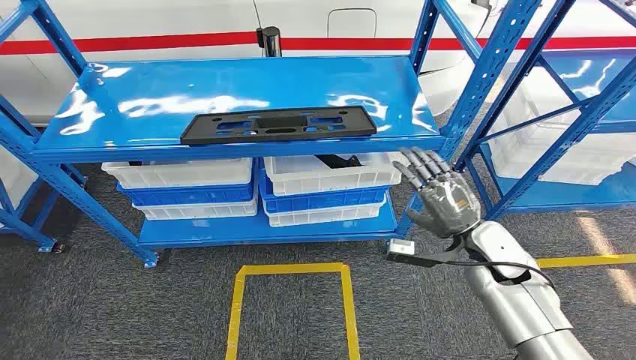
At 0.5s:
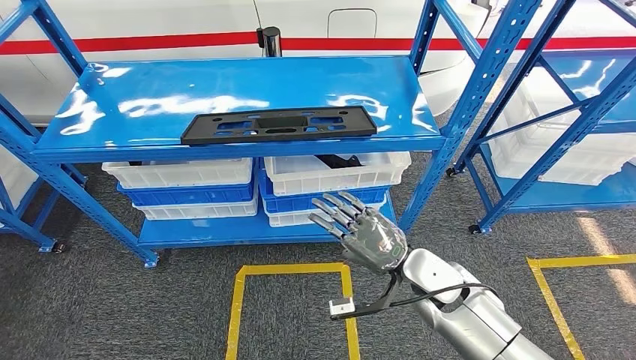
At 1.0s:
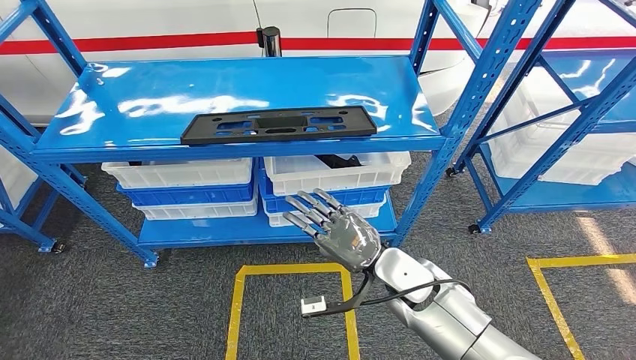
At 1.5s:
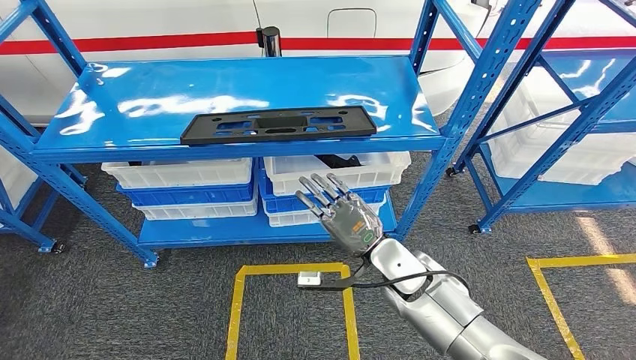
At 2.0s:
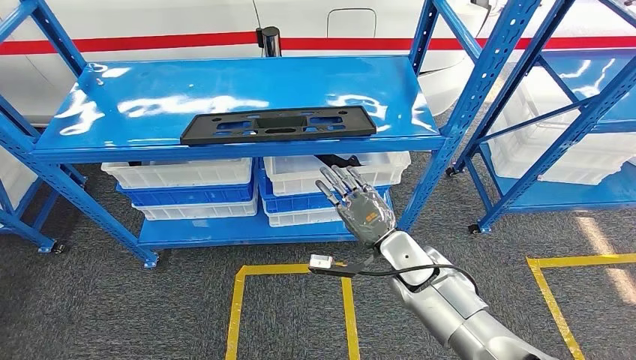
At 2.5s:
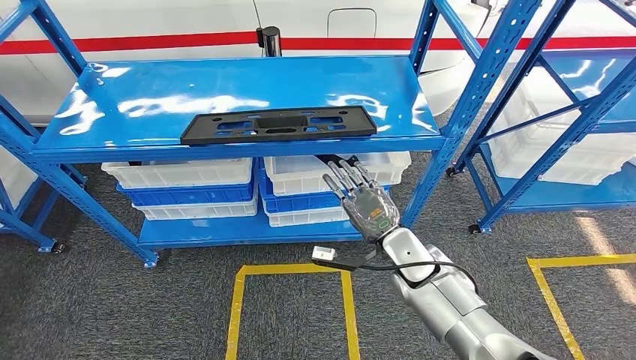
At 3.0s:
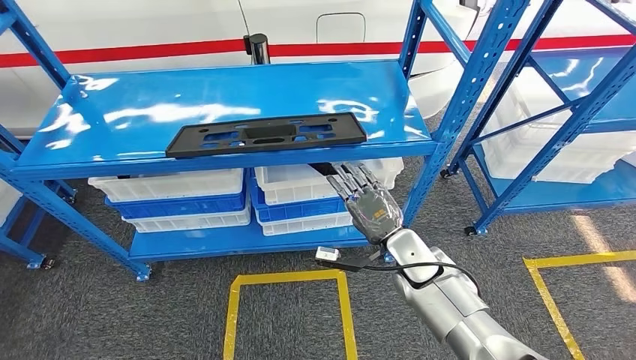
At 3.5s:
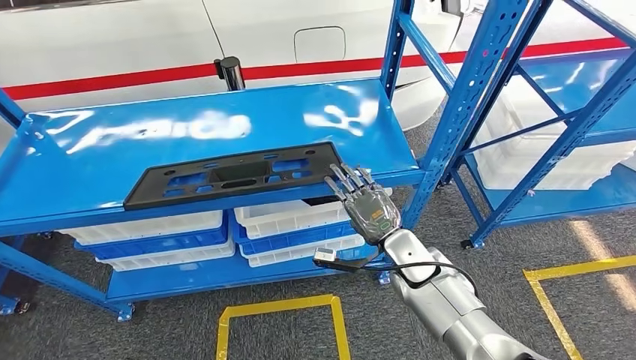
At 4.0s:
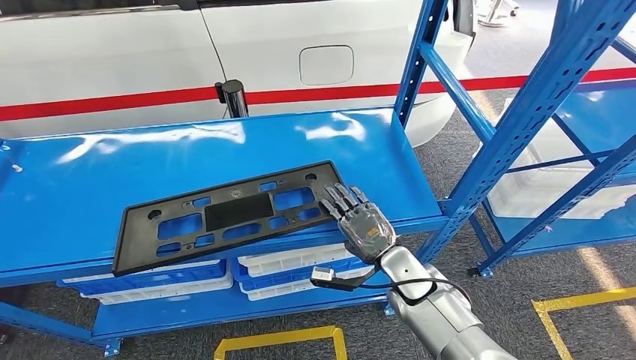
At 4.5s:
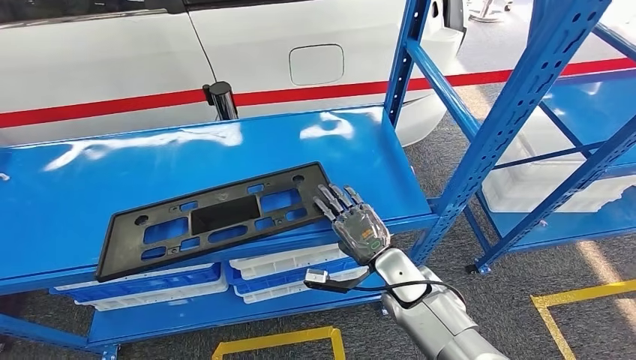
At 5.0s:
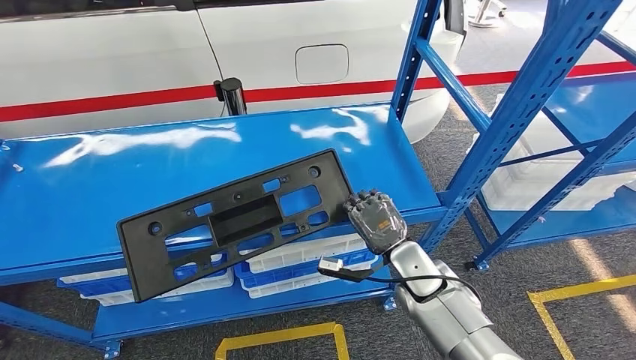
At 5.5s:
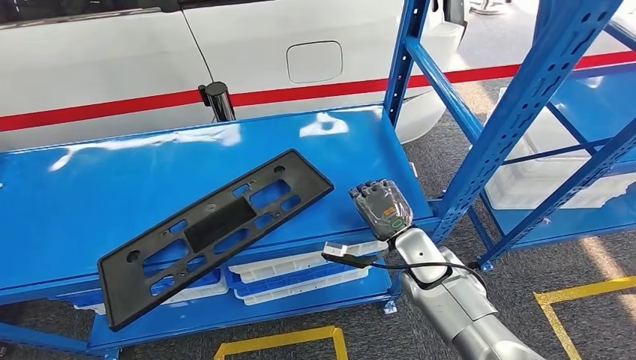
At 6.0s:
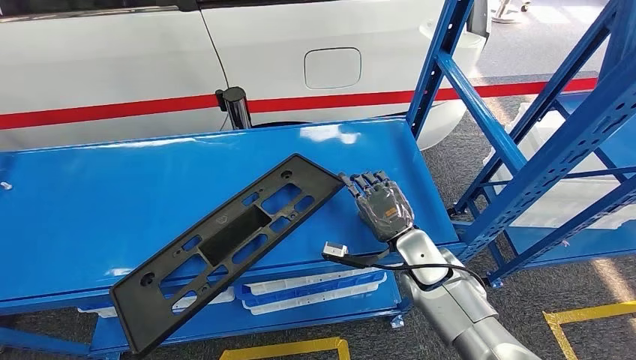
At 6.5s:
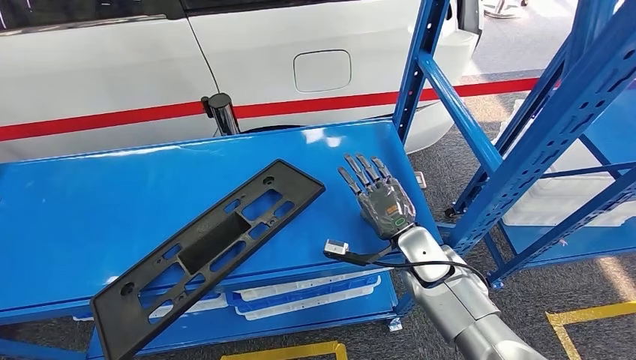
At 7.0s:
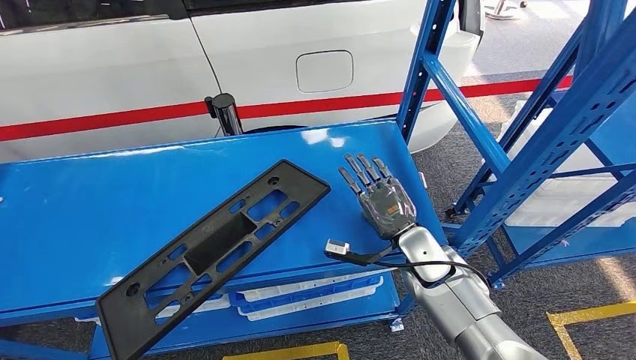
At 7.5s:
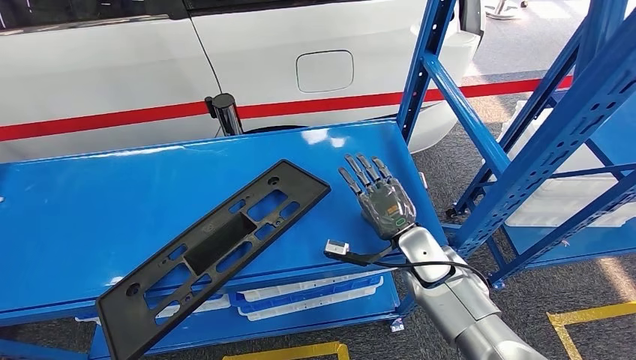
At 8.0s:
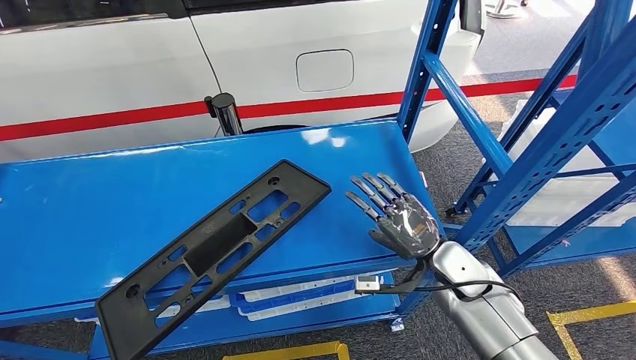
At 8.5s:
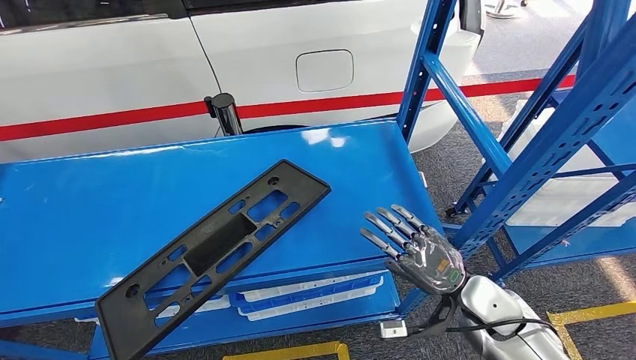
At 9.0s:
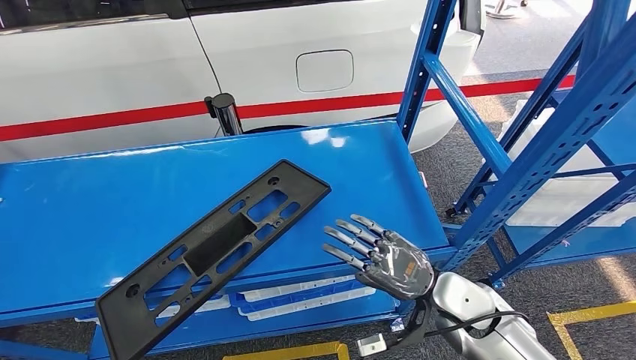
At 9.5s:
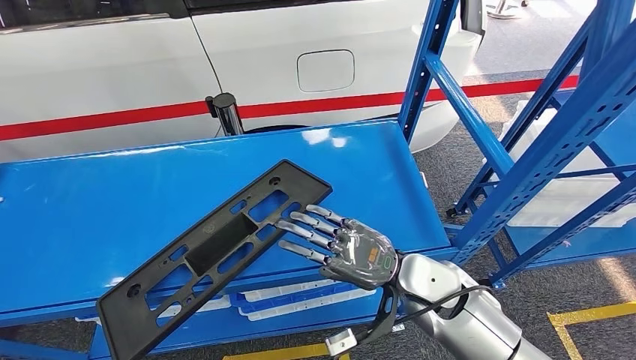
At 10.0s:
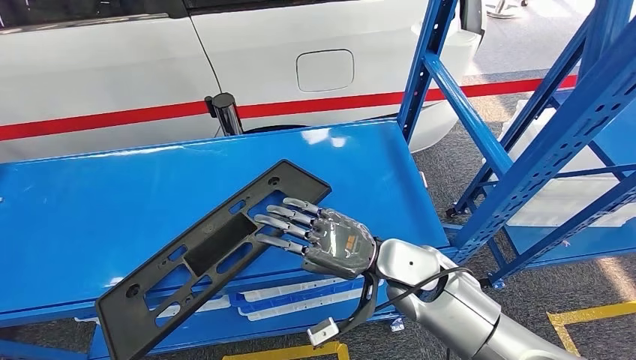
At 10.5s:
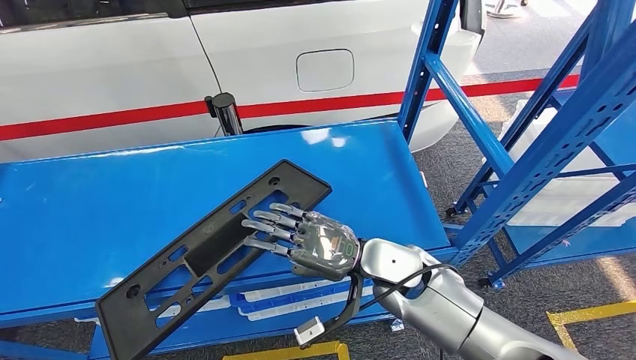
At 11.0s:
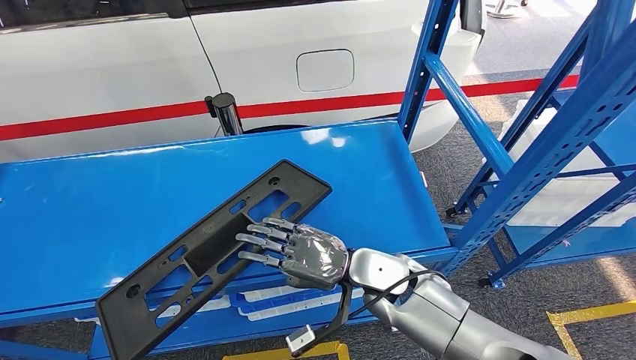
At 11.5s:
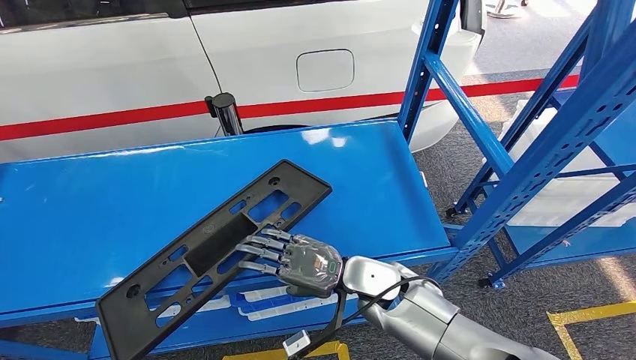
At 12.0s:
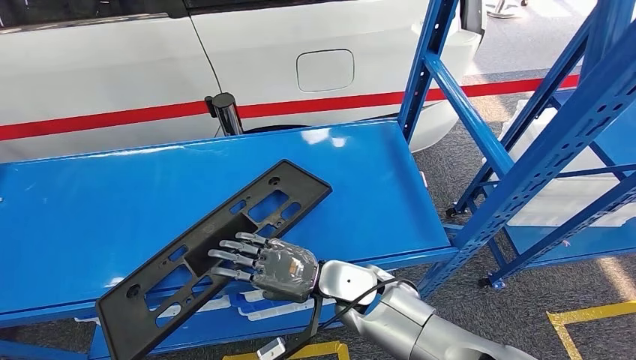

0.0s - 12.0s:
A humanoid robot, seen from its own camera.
8.0s - 10.0s: The right hand is displaced to the left and upward by roughly 10 cm.
10.0s - 12.0s: The right hand heads to the left and downward, covering about 10 cm.

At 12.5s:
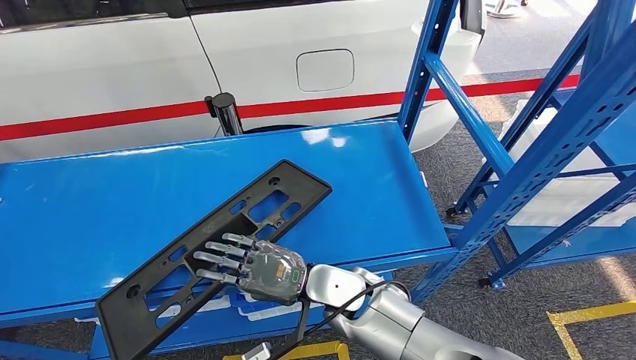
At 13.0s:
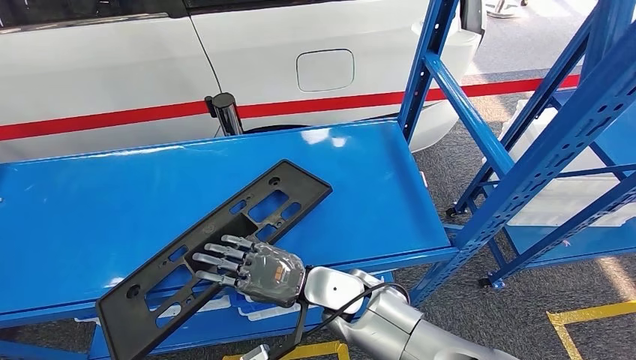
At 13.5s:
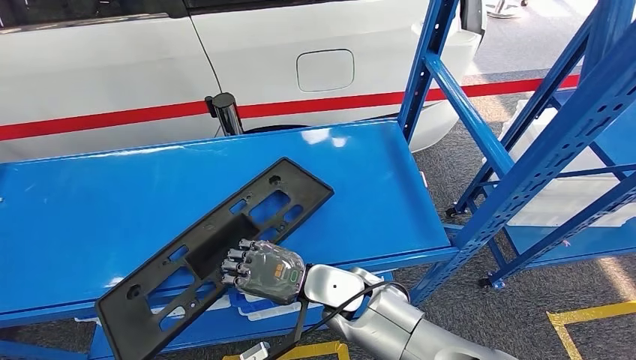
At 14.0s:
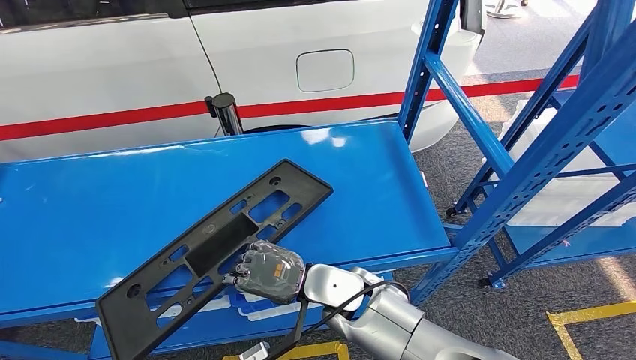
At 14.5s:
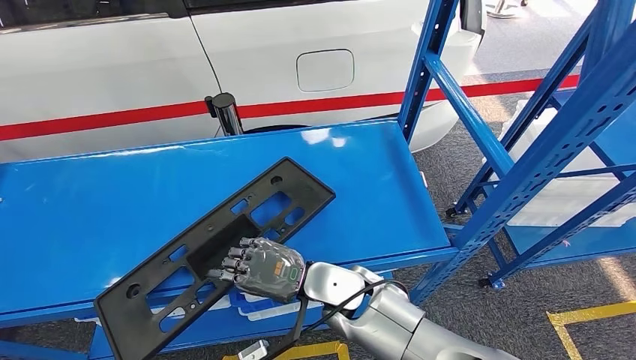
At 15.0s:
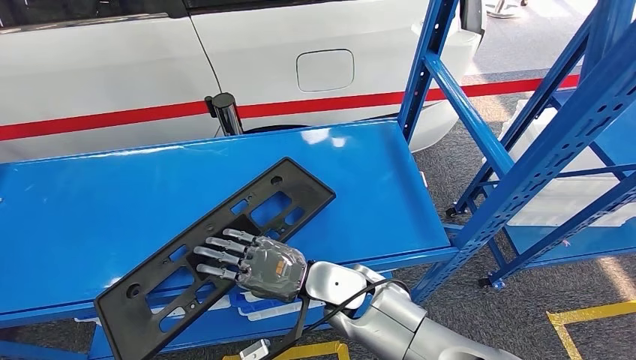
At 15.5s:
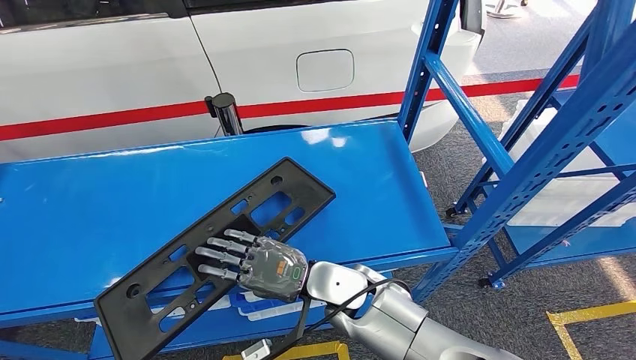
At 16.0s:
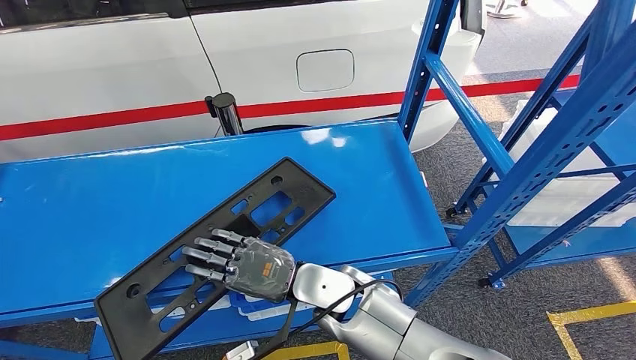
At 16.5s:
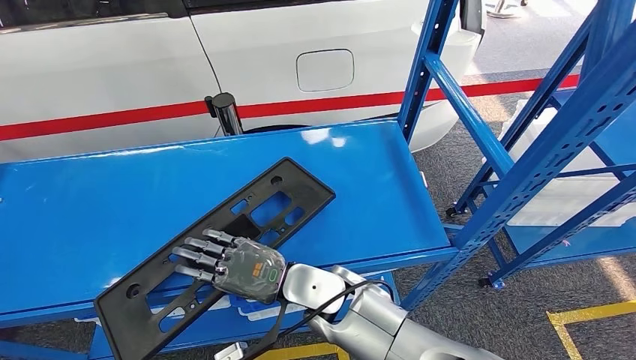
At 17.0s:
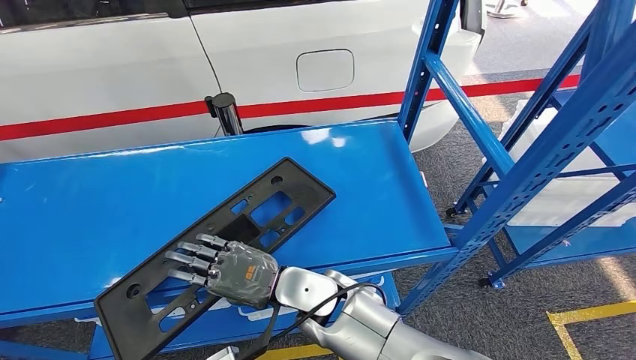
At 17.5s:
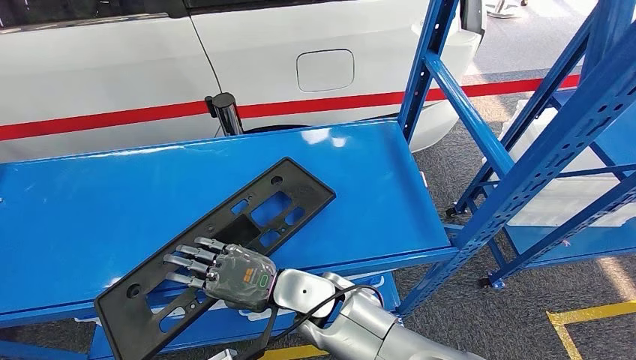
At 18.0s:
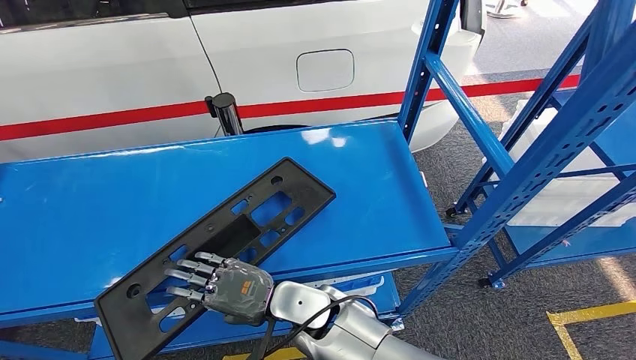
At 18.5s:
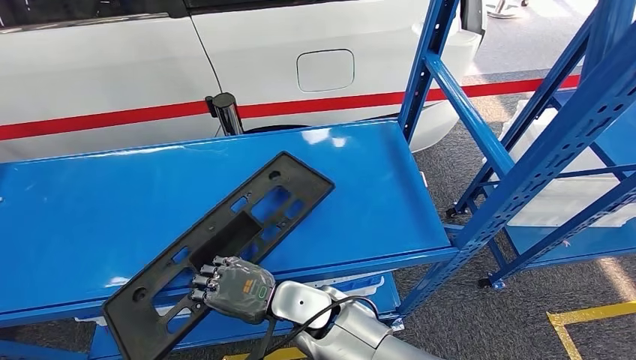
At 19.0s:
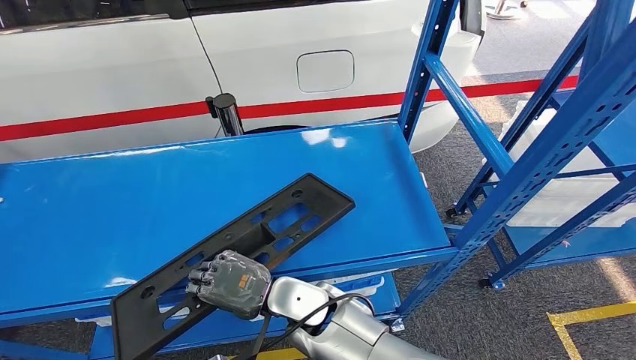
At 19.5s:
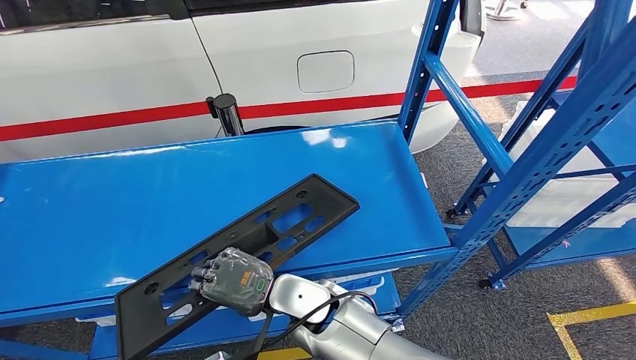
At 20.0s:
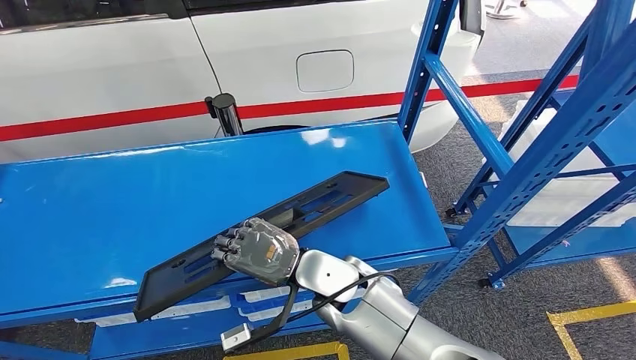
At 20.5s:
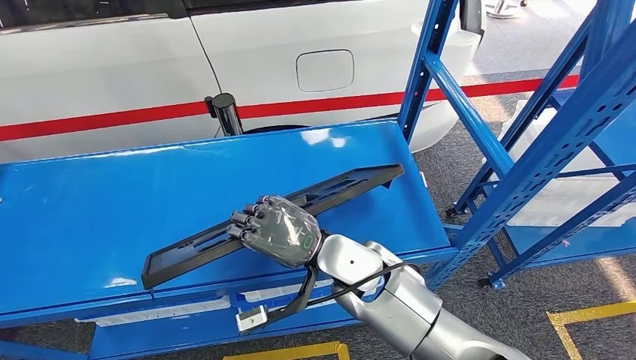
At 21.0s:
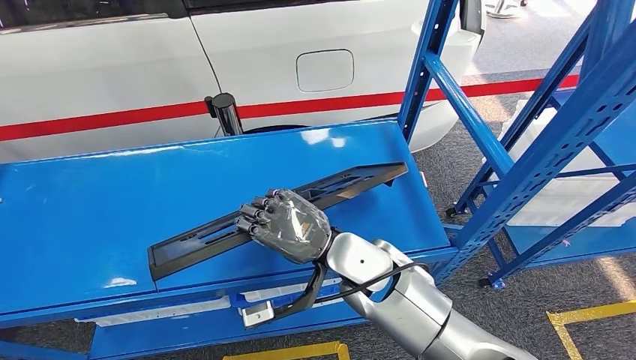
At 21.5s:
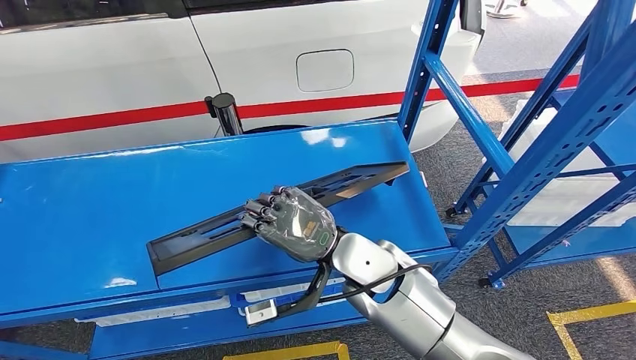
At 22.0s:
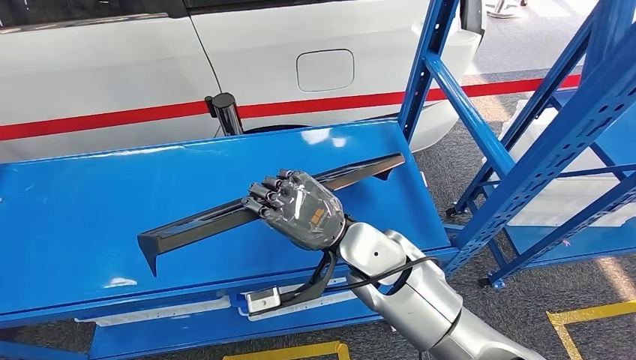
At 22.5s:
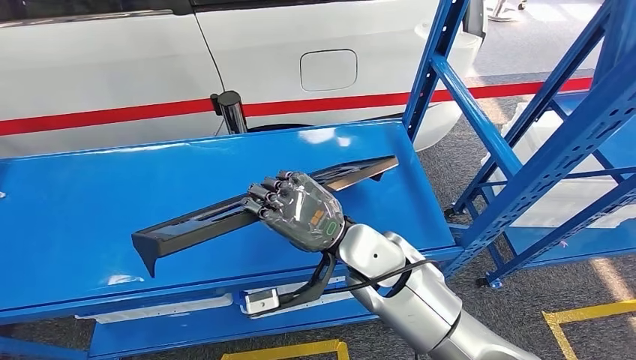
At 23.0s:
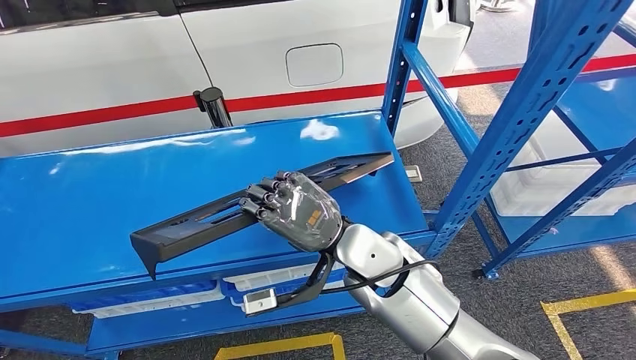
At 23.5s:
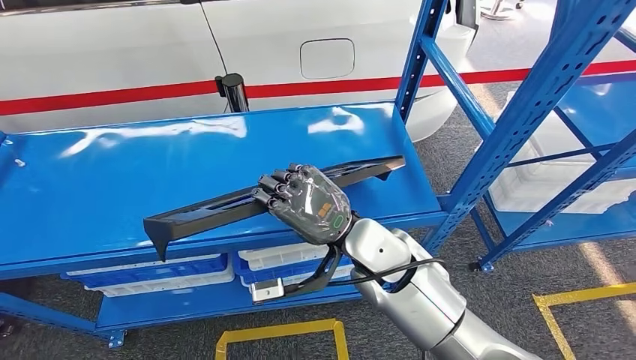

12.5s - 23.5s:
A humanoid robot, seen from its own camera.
12.5s - 14.5s: Both hands stay put.
14.5s - 18.0s: The hands make only small movements.
18.0s - 20.0s: The right hand moves some 5 cm.
20.0s - 21.5s: The right hand ends up some 5 cm from where it was.
